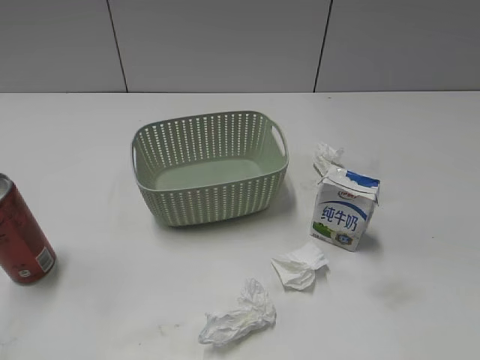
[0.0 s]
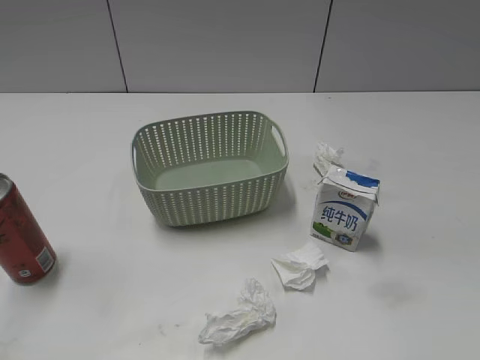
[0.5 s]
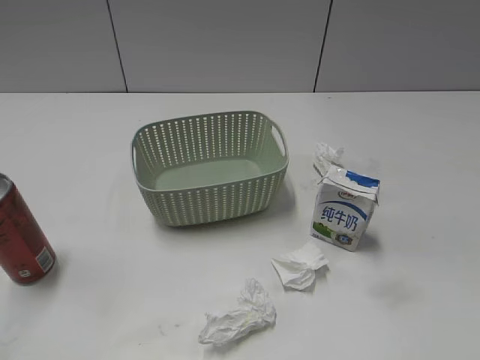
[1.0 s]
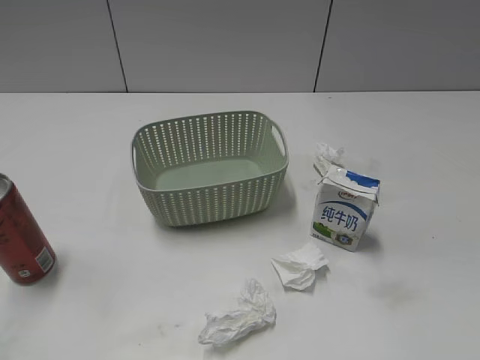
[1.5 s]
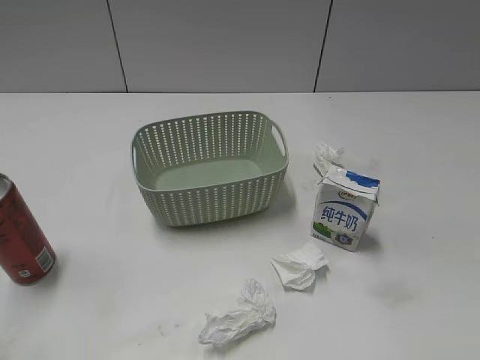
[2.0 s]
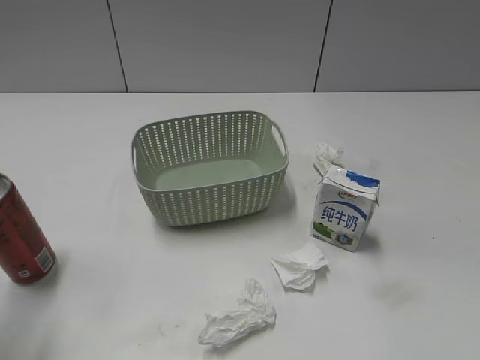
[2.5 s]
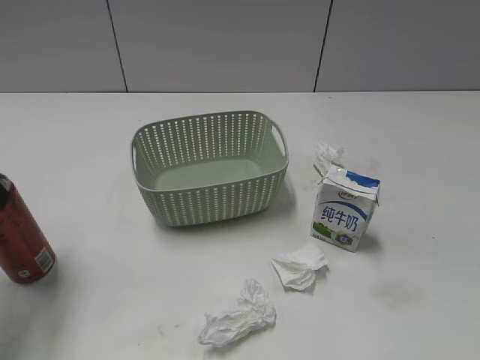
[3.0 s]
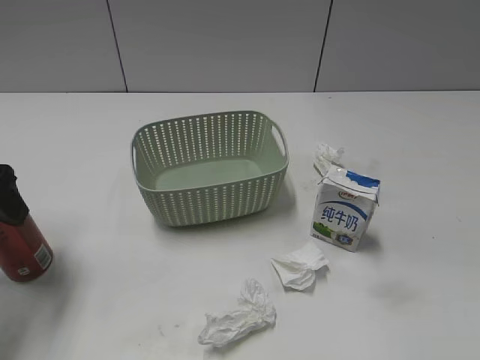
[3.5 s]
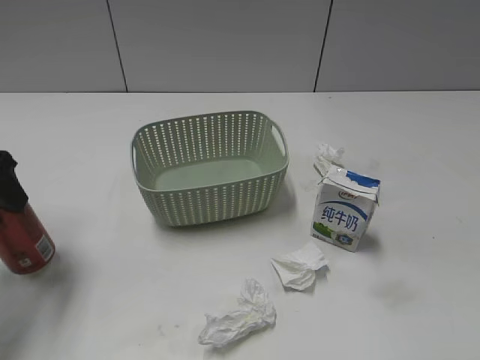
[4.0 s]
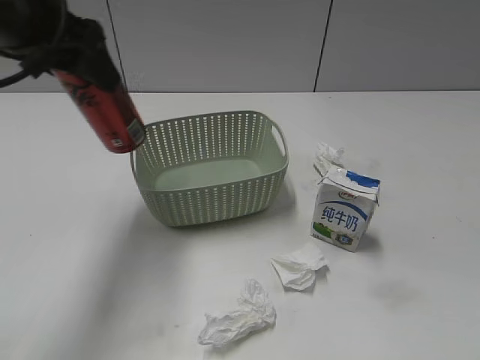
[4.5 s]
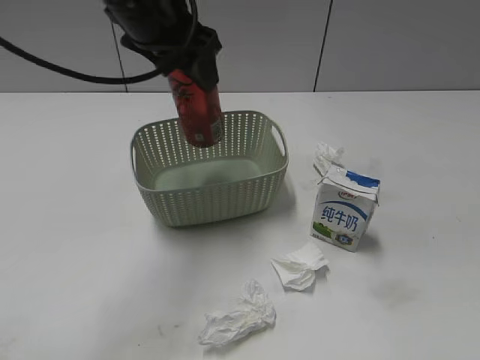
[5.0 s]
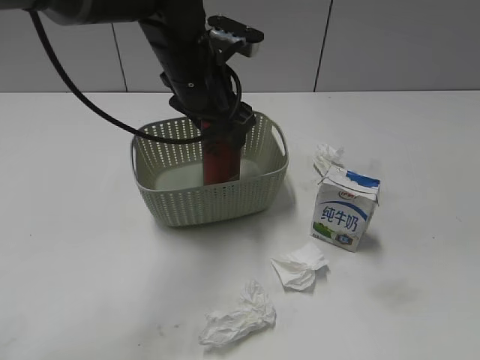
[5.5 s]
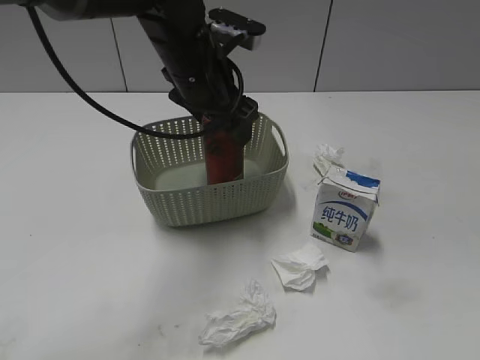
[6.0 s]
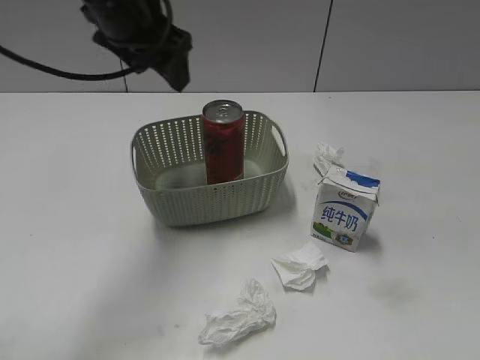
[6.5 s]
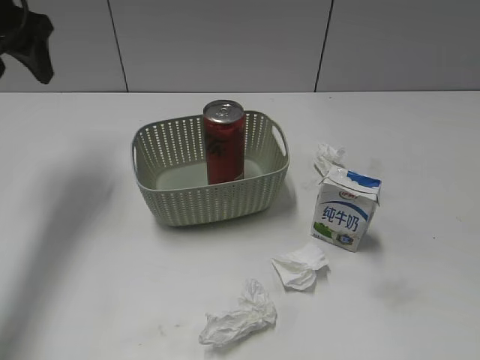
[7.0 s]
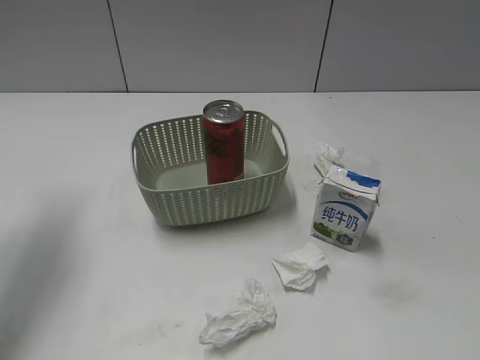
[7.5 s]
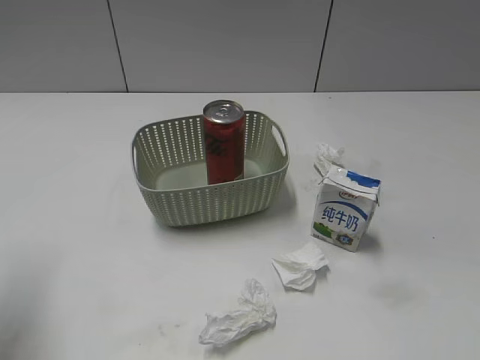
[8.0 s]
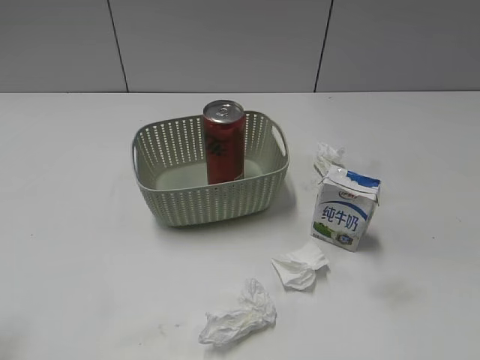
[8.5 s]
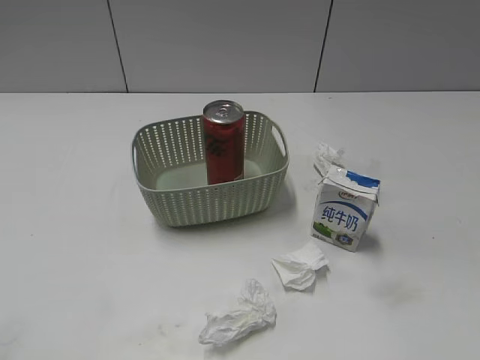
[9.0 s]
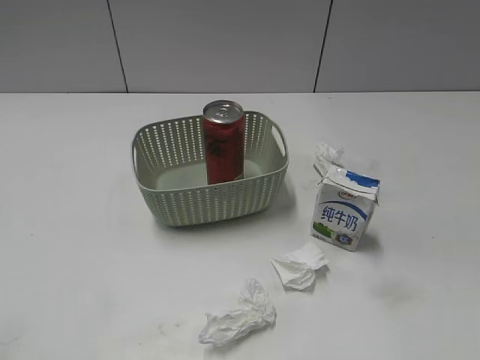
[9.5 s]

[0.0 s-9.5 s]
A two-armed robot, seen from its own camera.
Step, 4.0 to 6.0 s: Place the cola can in the basket with left gripper.
2.0 to 4.0 s: The left gripper shifts approximately 20 cm forward, and closes.
4.0 to 5.5 s: The left gripper heads to the right and forward, covering about 25 cm.
5.5 to 7.5 s: The left gripper goes approximately 25 cm to the left, and opens, then closes again.
7.5 to 9.5 s: The left gripper shifts some 30 cm backward.

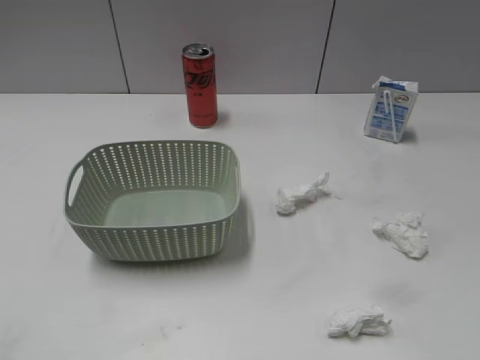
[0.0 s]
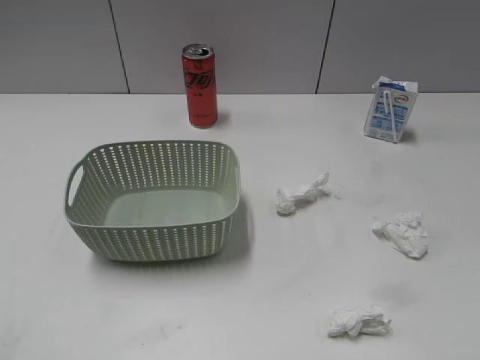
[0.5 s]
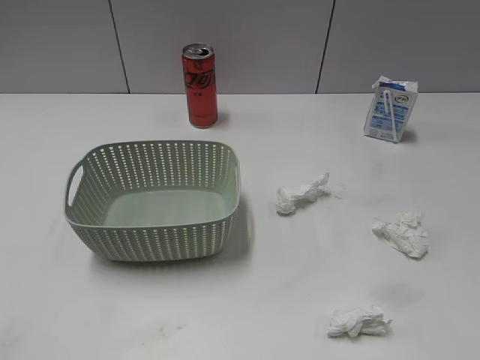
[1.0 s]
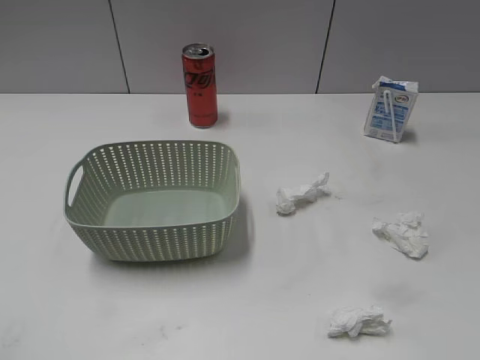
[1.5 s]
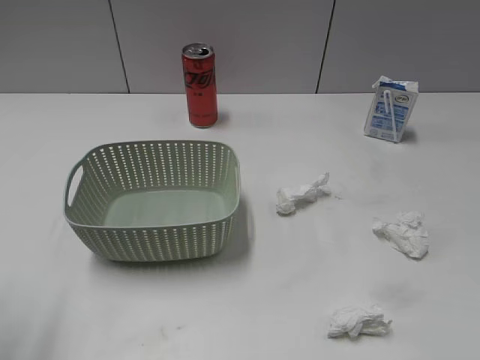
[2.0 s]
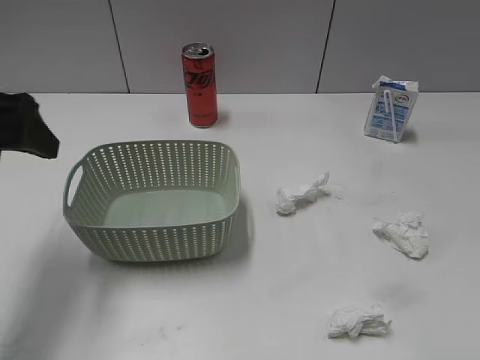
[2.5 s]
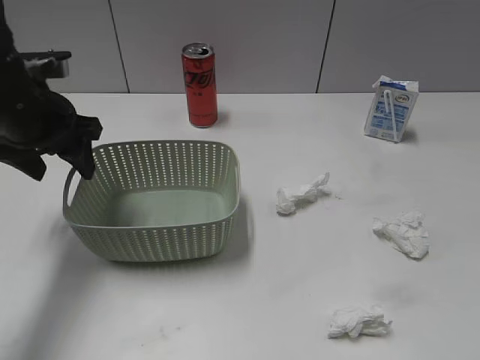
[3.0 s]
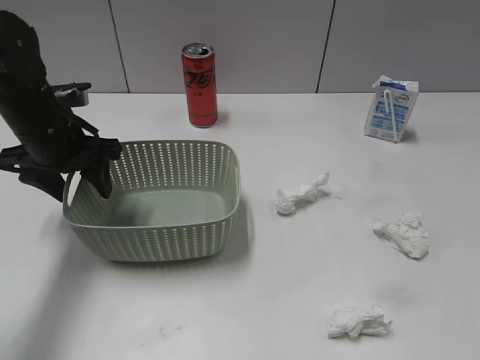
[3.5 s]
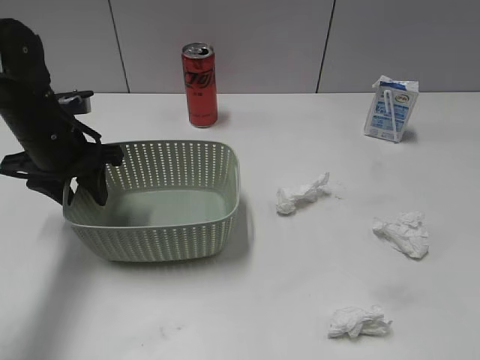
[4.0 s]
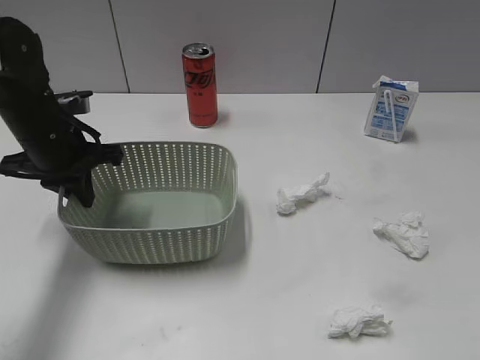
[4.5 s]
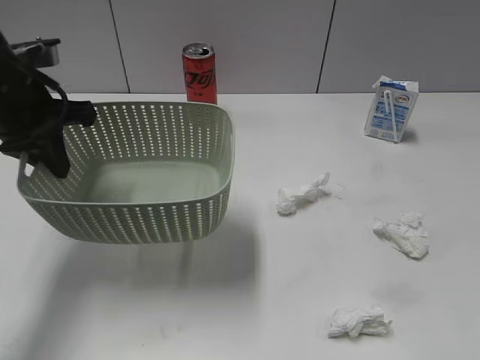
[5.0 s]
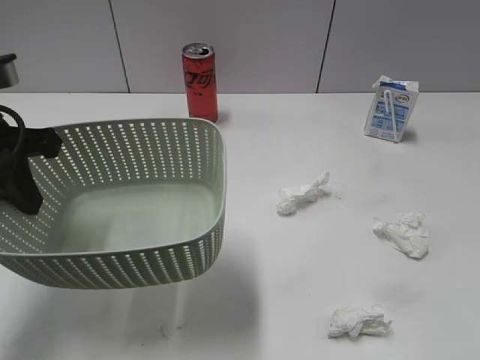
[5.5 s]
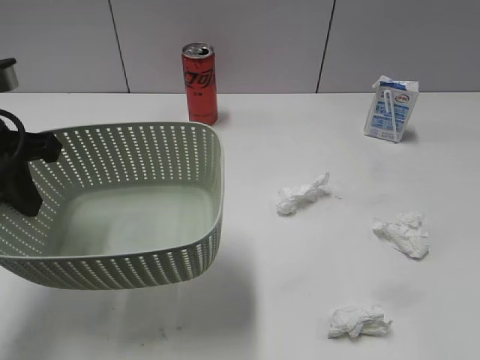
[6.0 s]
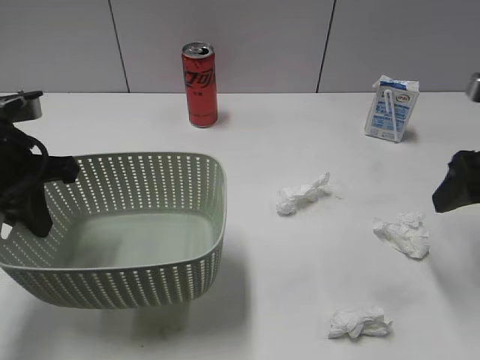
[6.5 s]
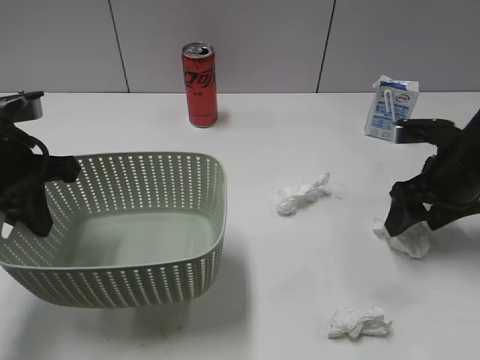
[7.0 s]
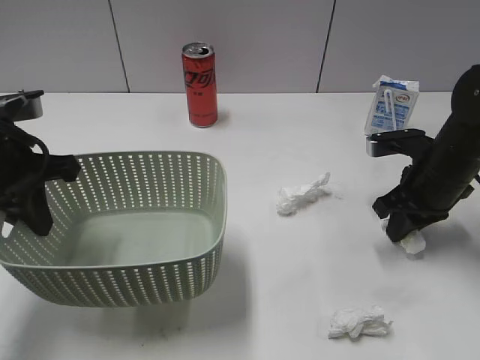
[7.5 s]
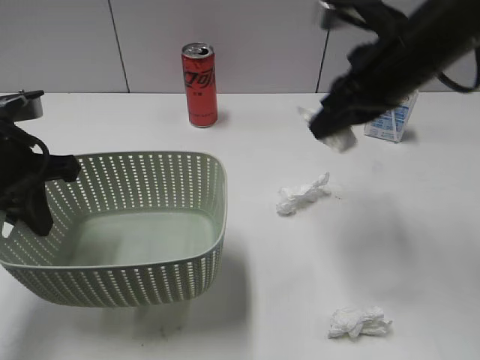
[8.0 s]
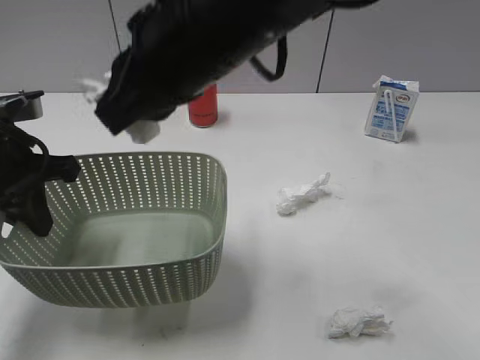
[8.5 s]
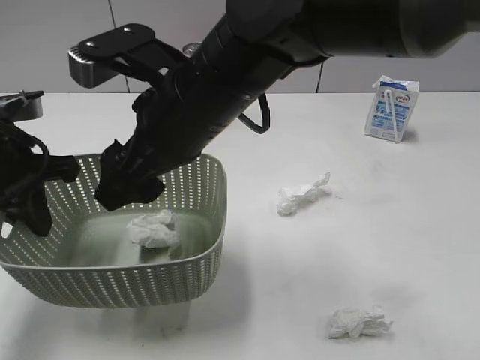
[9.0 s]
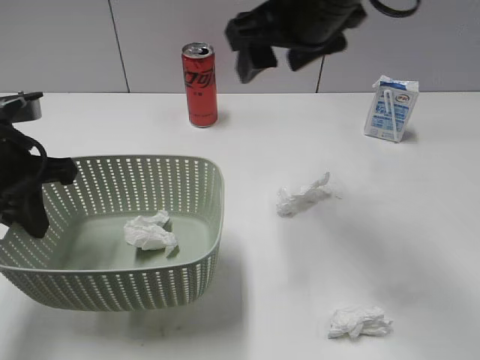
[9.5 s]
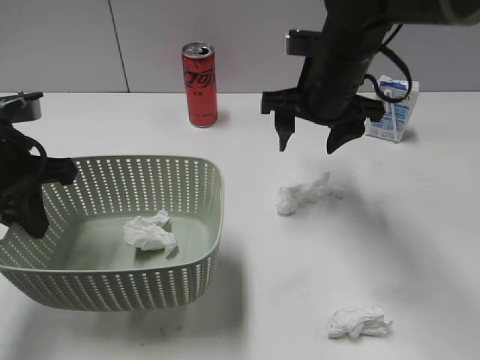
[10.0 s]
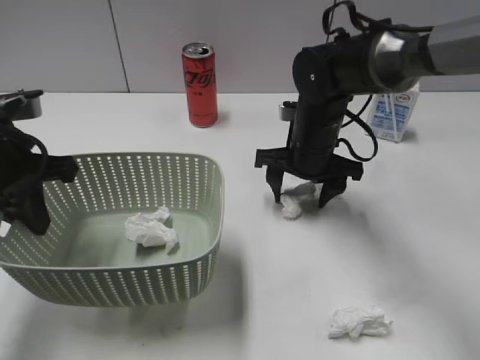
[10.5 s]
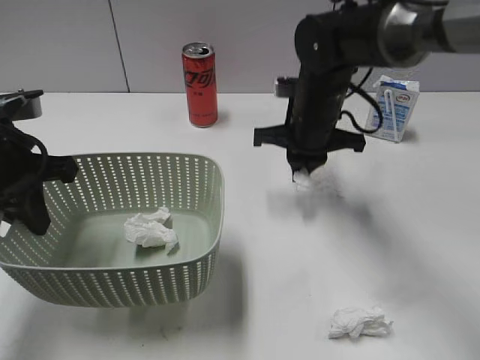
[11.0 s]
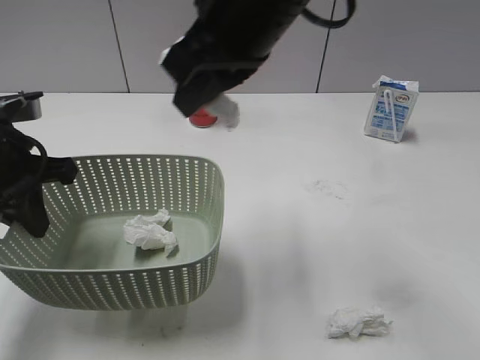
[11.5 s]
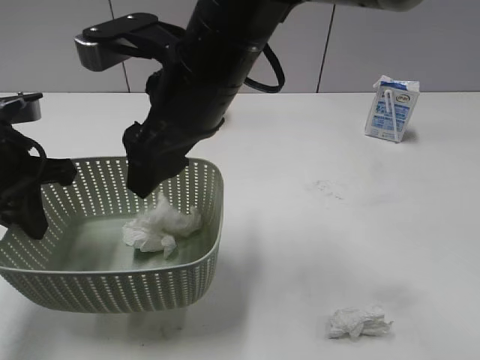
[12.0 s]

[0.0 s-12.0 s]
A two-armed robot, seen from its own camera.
Step, 1.5 to 4.5 s: Grasp the basket with left gripper.
Step, 5.0 to 5.5 s: Lift the basket with left gripper.
Step, 6.0 to 7.5 s: Grasp the waste paper with right gripper.
Step, 8.0 to 9.0 s: Place the waste paper in the basket with right gripper.
Step, 9.5 to 10.5 s: Grasp the waste paper with right gripper.
2.0 to 4.0 s: The left gripper heads forward and downward, covering approximately 25 cm.
4.0 to 6.0 s: The left gripper is displaced backward and upward by about 15 cm, and closes, while the right gripper heads forward, covering roughly 10 cm.
6.0 to 8.0 s: The right gripper is displaced forward and to the left by roughly 30 cm, and closes its fingers.
8.0 to 10.0 s: The right gripper travels to the left and back again, roughly 20 cm each way, and opens.
10.0 to 12.0 s: The right gripper swings up and down, some 20 cm each way, with 2 reversals, and closes and opens again.

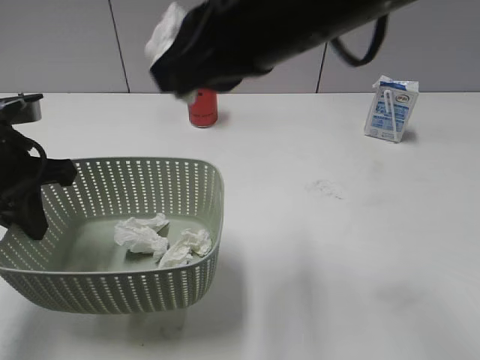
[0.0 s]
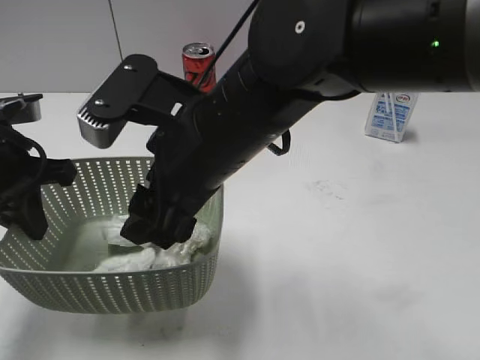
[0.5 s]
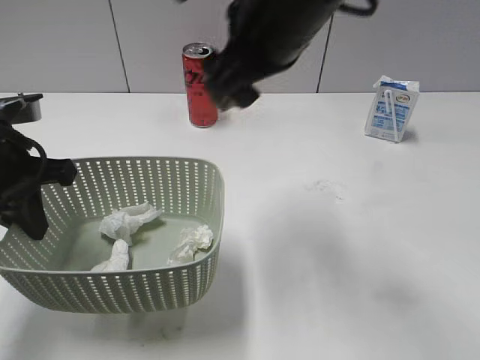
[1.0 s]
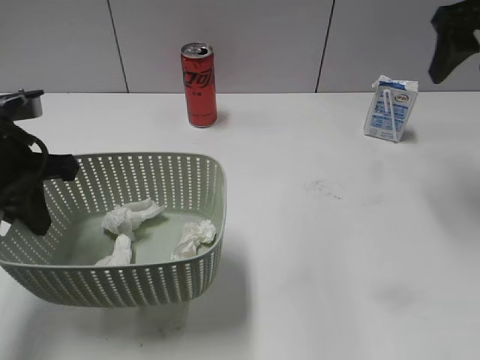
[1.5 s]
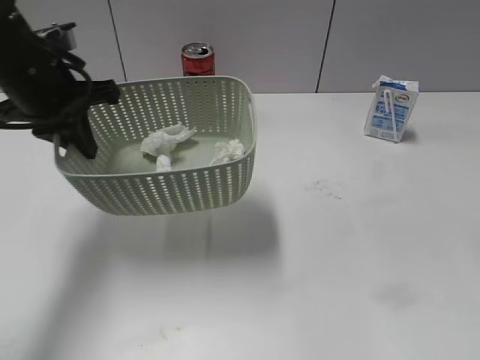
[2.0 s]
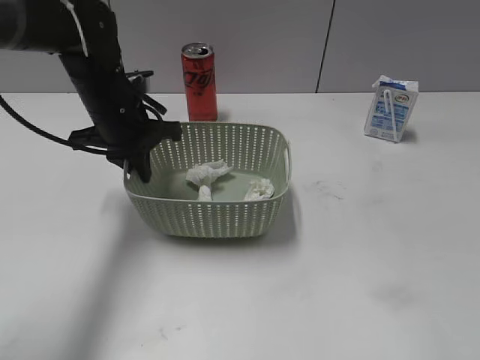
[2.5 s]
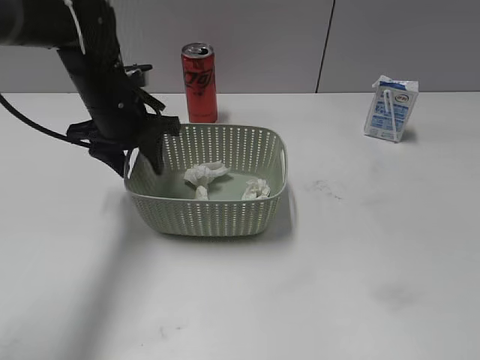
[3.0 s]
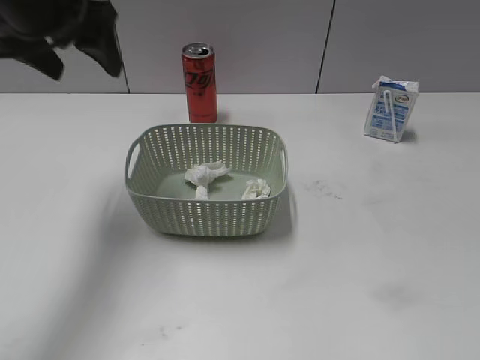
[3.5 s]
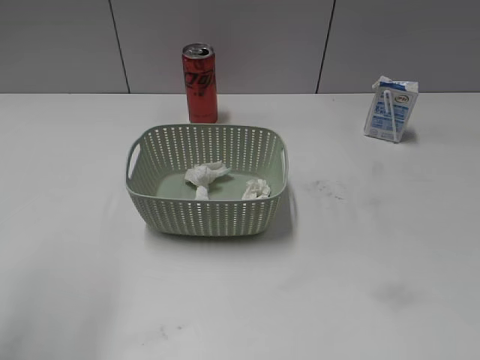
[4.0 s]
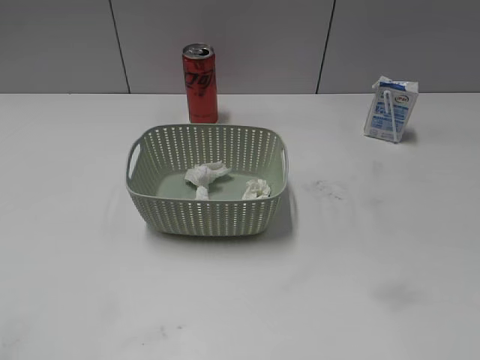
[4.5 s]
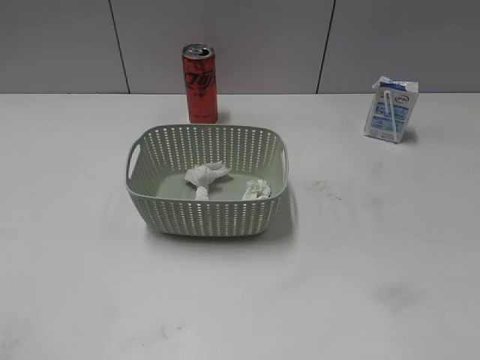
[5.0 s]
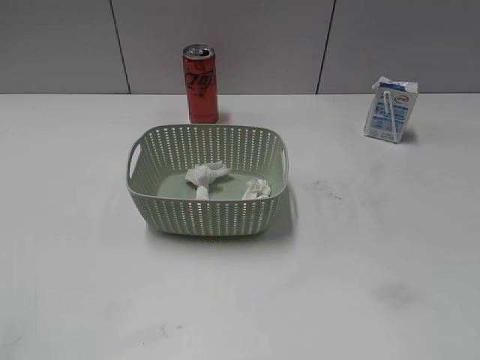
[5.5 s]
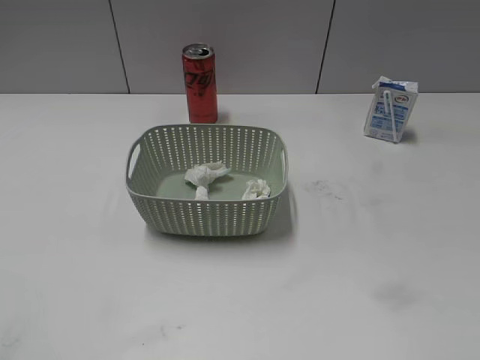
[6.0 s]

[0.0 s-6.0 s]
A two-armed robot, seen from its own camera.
Step, 1.0 to 3.0 s: Place the basket on the table with left gripper.
0.0 to 2.0 s: The right gripper heads to the right, covering about 25 cm, and opens up, while the left gripper moves forward, approximately 5 cm.
2.0 to 4.0 s: The left gripper moves upward and backward, roughly 25 cm, and opens its fingers; the right gripper shifts approximately 30 cm backward.
